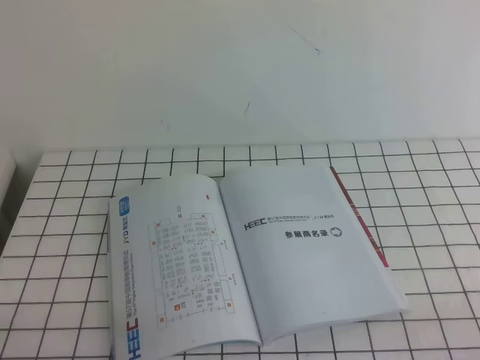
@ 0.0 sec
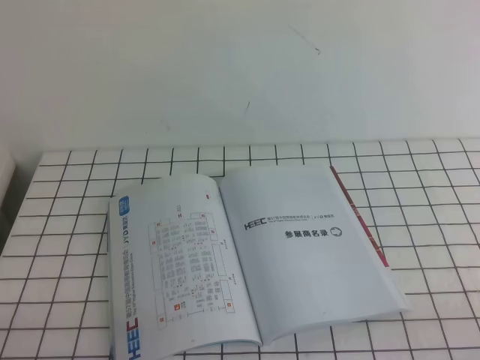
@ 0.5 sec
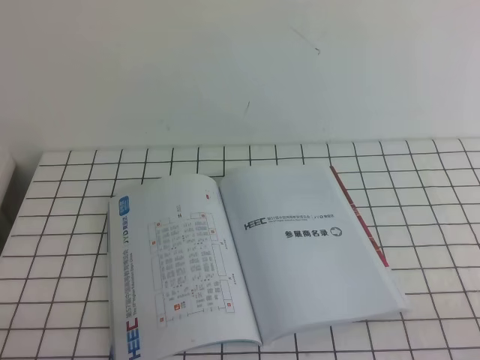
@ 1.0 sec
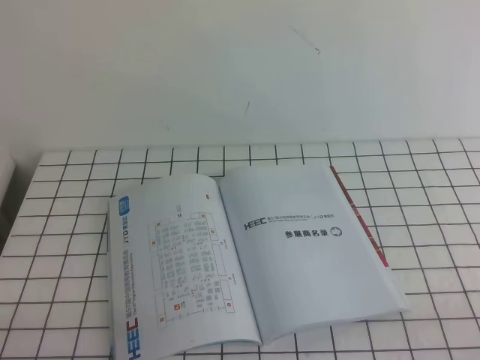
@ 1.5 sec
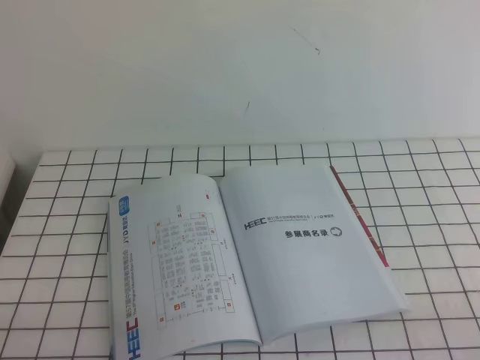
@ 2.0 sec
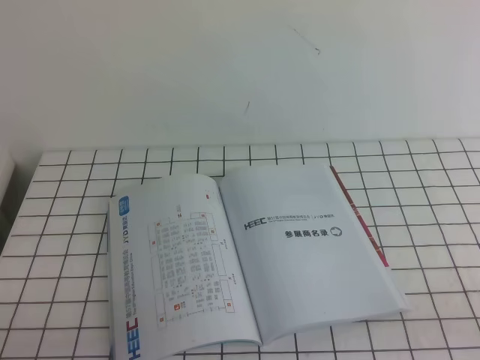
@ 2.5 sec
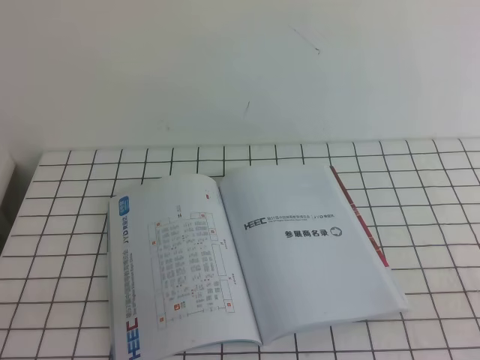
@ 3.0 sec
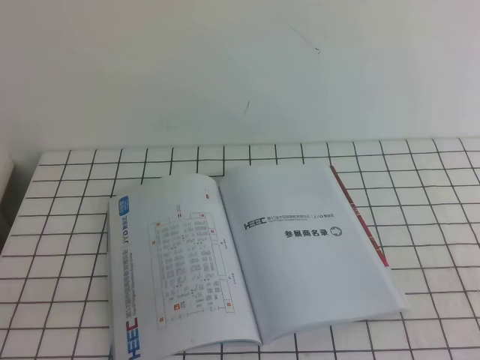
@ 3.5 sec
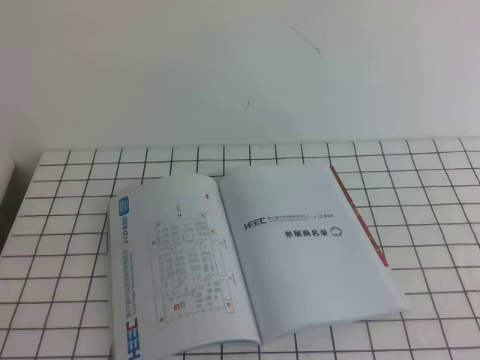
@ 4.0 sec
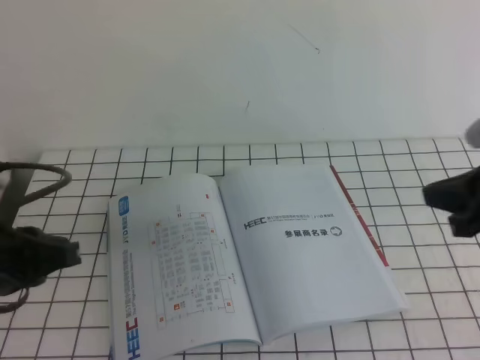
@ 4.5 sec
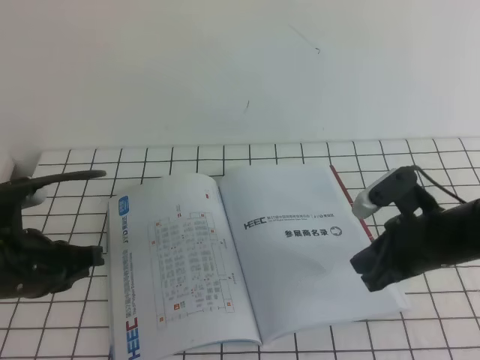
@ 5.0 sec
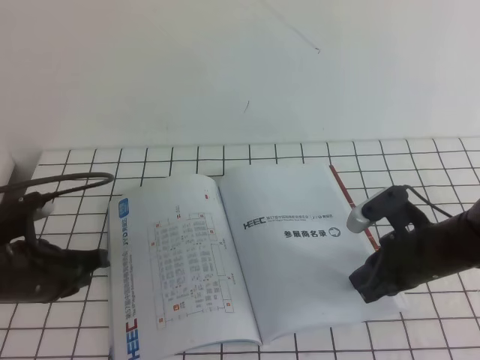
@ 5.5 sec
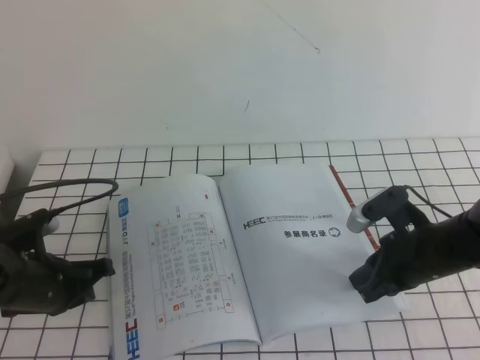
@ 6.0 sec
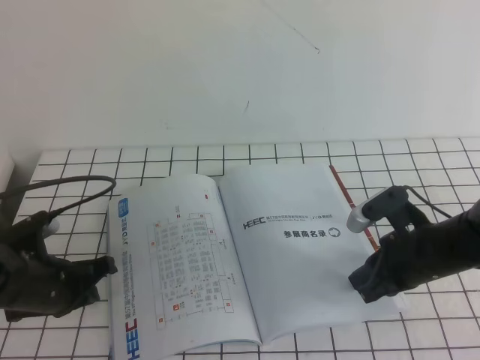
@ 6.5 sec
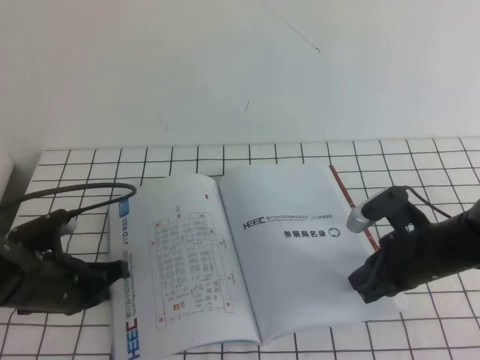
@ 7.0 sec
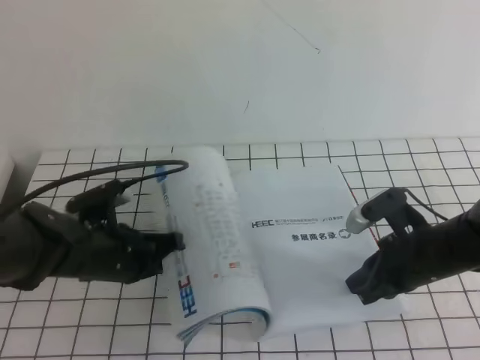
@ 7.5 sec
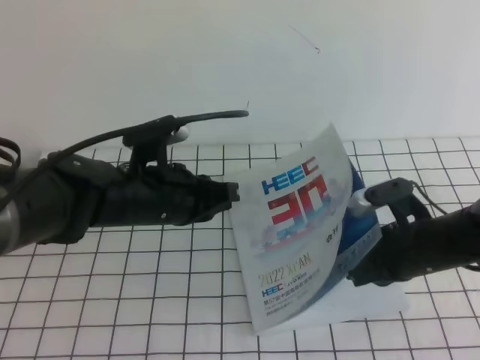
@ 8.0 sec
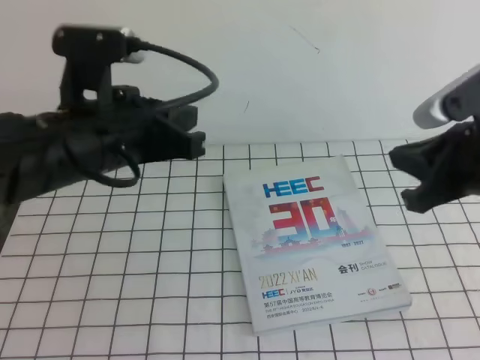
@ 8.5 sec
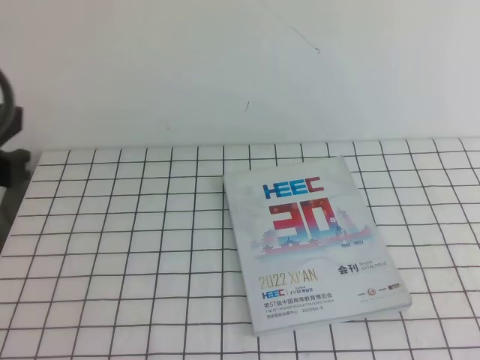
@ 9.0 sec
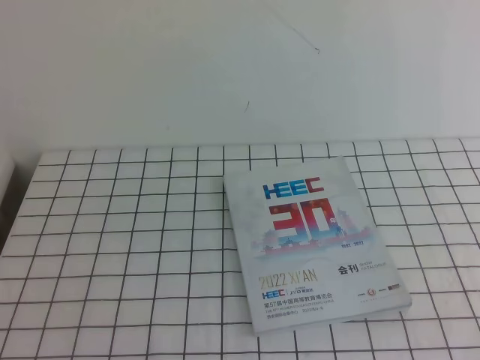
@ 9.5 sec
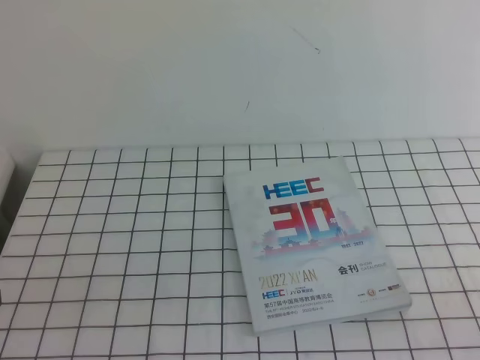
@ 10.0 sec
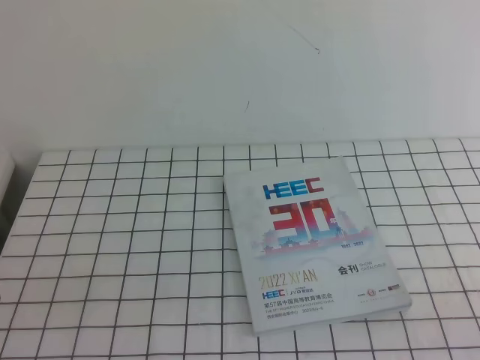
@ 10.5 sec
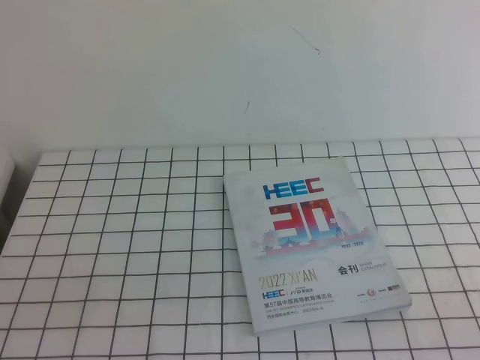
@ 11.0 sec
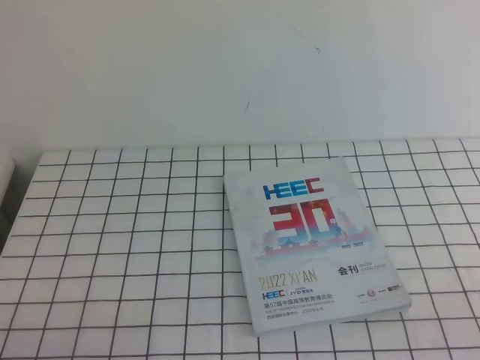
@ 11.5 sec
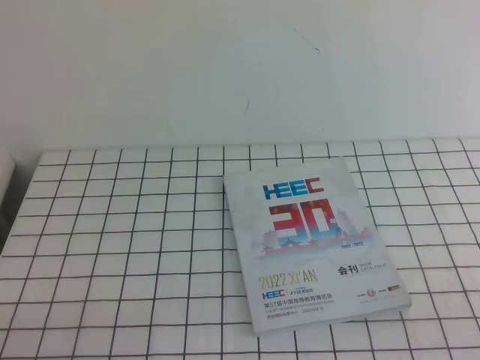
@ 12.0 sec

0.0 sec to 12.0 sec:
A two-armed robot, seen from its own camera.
Task of the whole recording: on the white tablecloth, hold the book with one hand and close it with the other.
0.0 sec to 2.0 sec: Both grippers stay about where they are.
4.0 sec to 6.0 sec: The left gripper heads forward and downward, covering approximately 25 cm. Meanwhile the right gripper goes approximately 30 cm downward, forward and to the left.
6.0 sec to 8.0 sec: The left gripper moves to the right and upward, approximately 15 cm.
8.0 sec to 10.0 sec: The right gripper moves backward, upward and to the right, some 30 cm; the left gripper moves backward and to the left, approximately 25 cm.

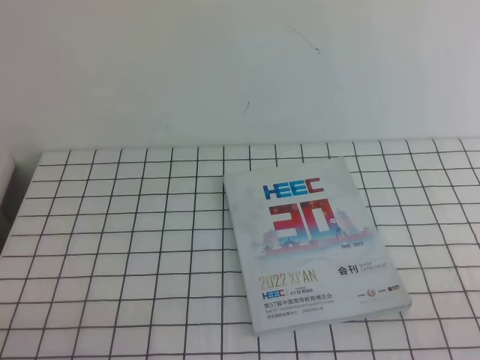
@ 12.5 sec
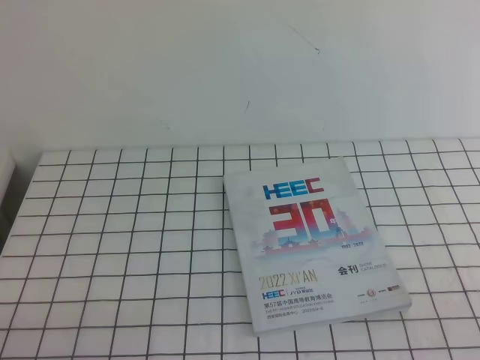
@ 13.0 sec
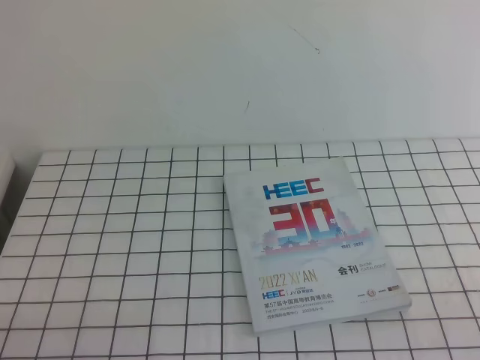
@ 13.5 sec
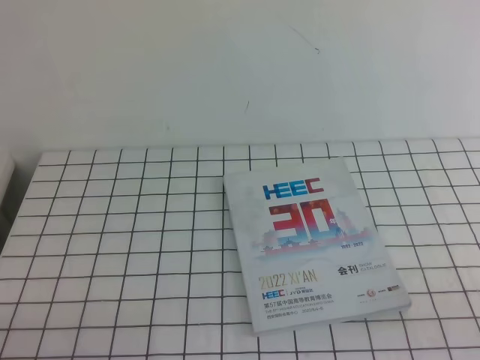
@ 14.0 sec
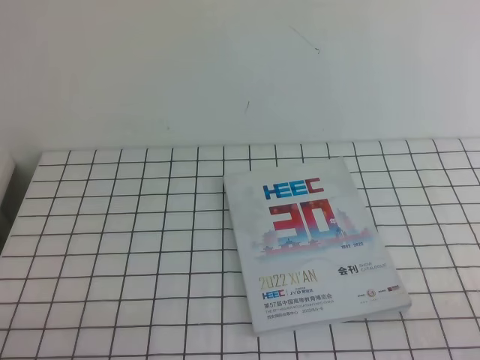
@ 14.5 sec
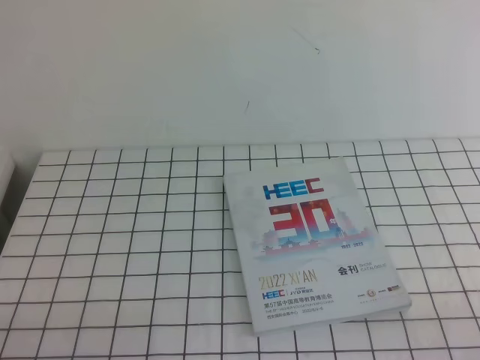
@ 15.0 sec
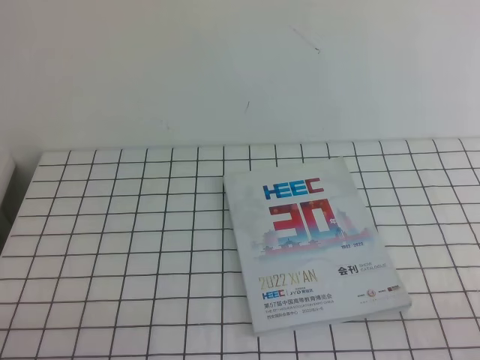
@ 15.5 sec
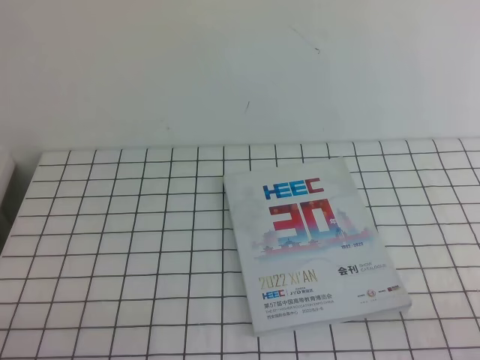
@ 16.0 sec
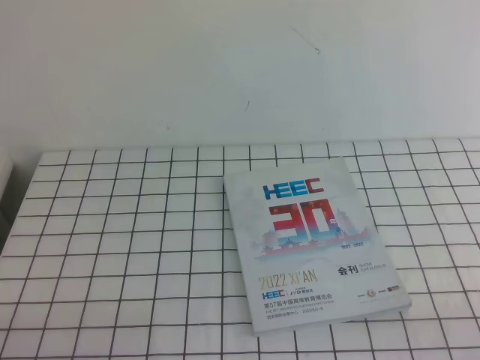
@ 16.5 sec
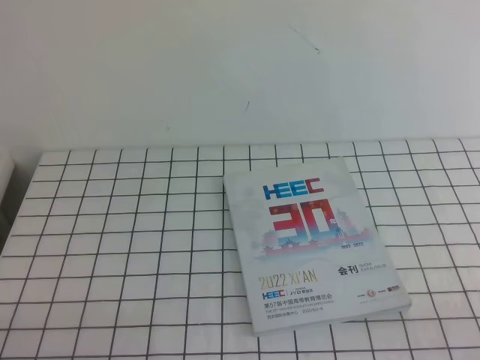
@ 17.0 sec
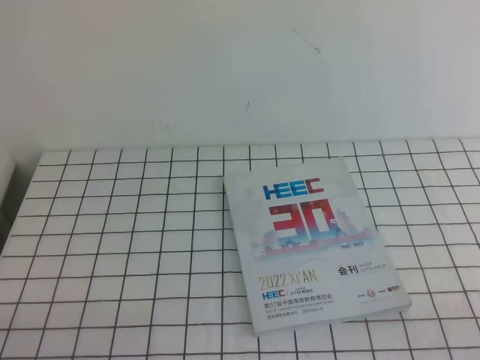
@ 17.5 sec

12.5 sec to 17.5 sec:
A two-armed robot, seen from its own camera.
Task of the whole recording: on the white tablecloth, hold the book with one hand and close it with the other.
15.0 sec to 17.5 sec: Both grippers stay put.
